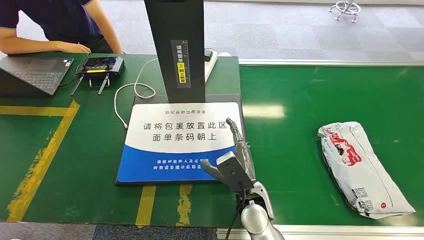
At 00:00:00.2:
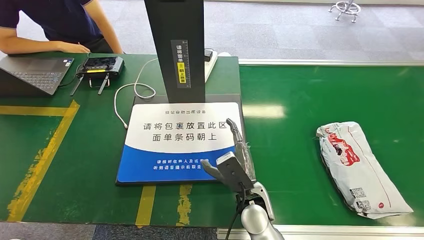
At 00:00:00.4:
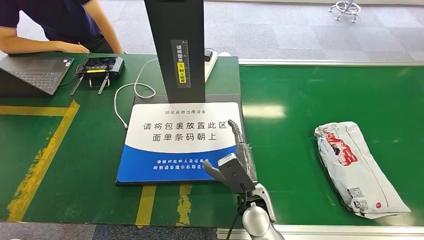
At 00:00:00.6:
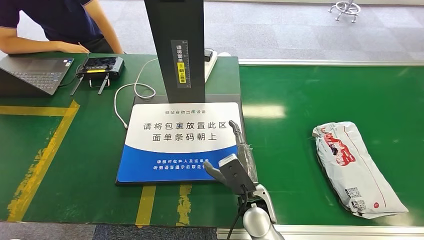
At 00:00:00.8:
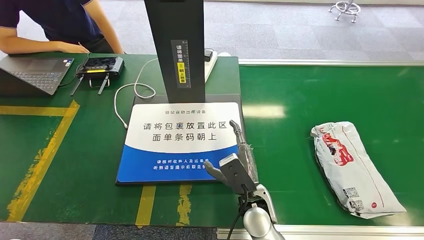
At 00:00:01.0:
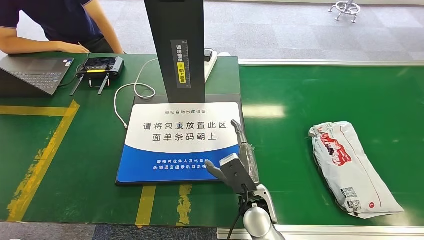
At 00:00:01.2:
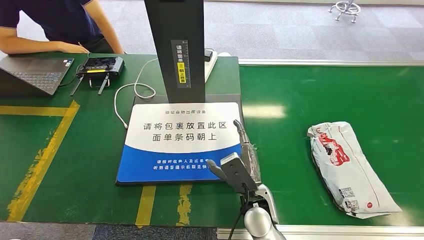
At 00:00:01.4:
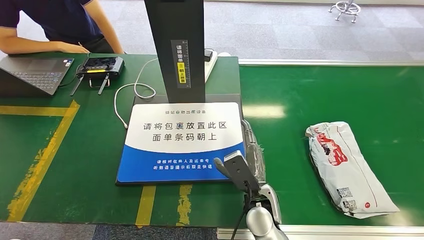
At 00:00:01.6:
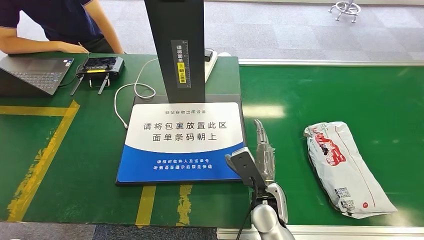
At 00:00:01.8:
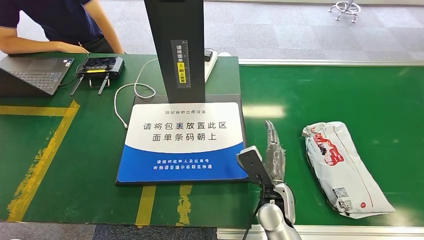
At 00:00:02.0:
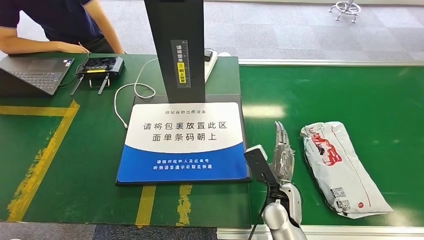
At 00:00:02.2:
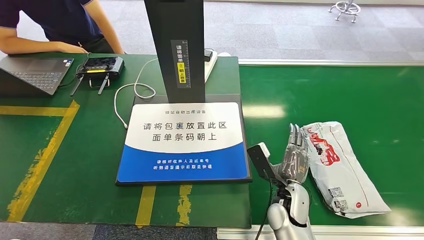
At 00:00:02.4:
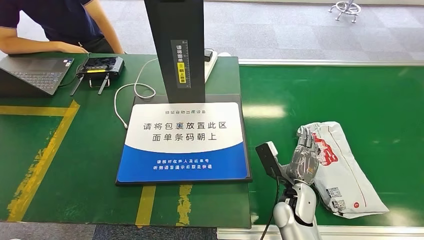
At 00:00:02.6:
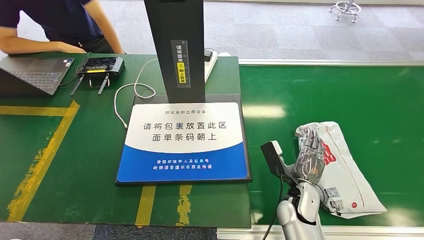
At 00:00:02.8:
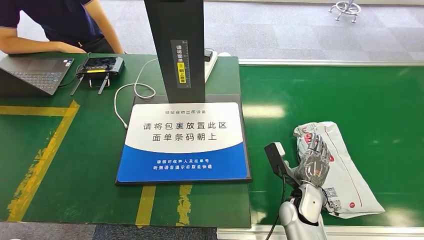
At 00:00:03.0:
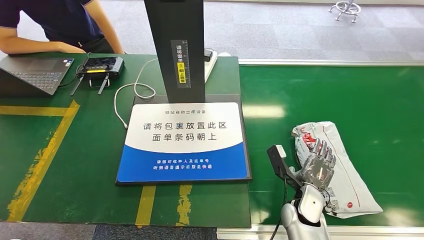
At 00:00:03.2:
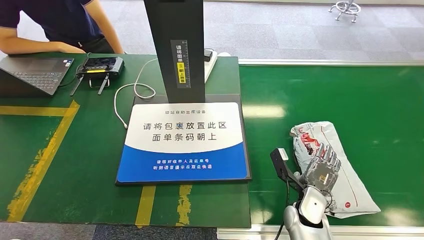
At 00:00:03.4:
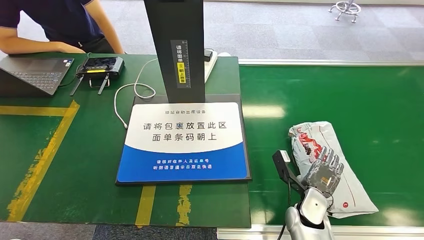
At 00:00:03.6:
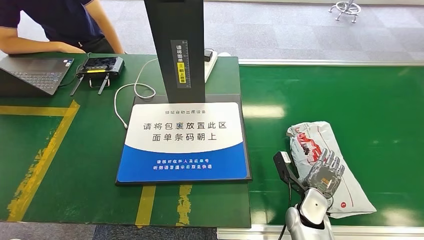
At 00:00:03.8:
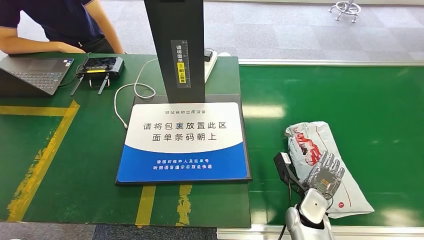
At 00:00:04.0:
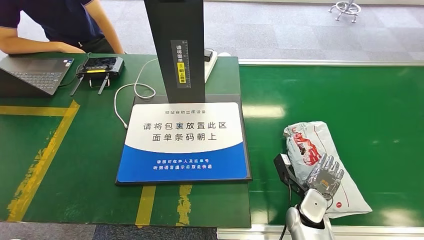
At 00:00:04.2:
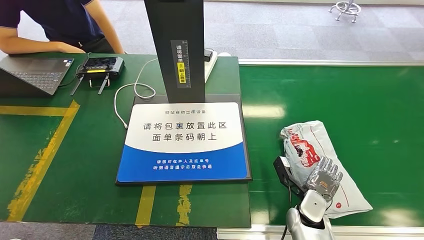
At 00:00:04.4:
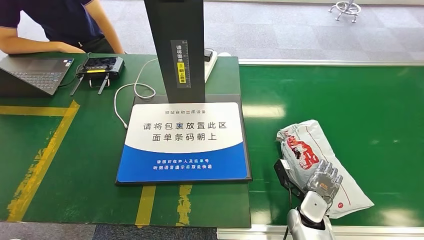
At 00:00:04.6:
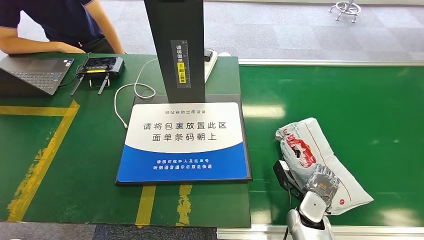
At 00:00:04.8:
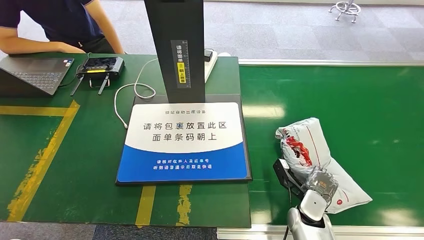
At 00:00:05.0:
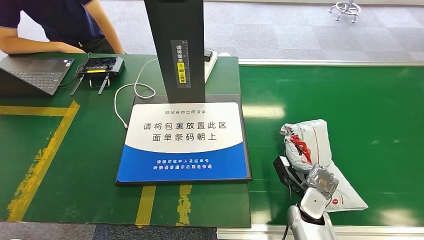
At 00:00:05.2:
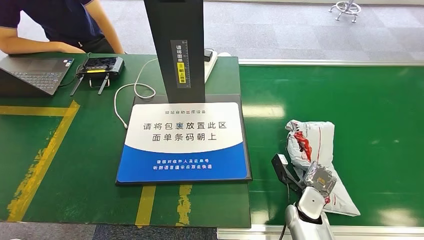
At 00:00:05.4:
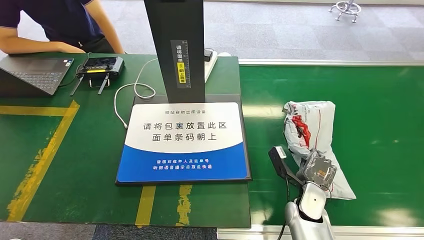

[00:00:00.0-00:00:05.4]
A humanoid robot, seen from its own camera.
Step, 00:00:00.0 to 00:00:05.4: Pick up the package from the conveyor belt.
00:00:01.4 to 00:00:02.8: The right hand goes approximately 10 cm to the right.
00:00:04.0 to 00:00:05.4: The hands move only a little.
